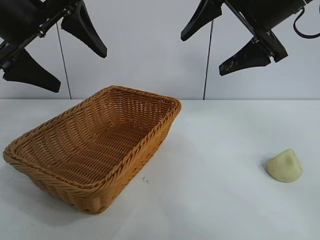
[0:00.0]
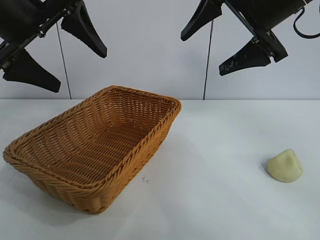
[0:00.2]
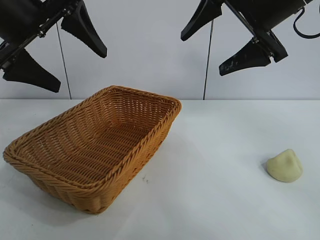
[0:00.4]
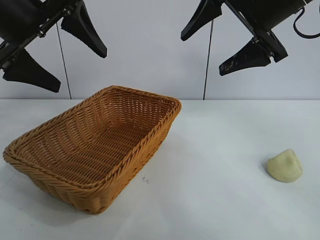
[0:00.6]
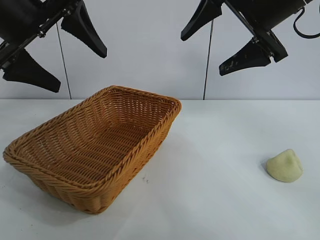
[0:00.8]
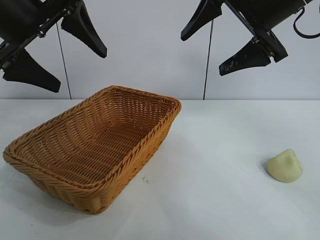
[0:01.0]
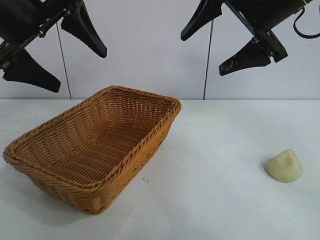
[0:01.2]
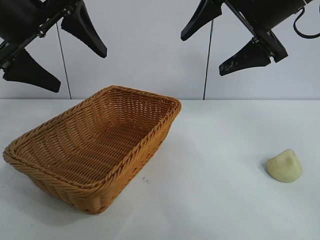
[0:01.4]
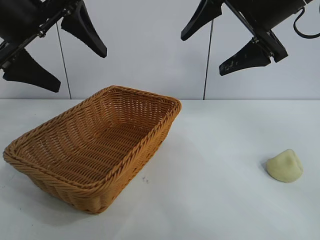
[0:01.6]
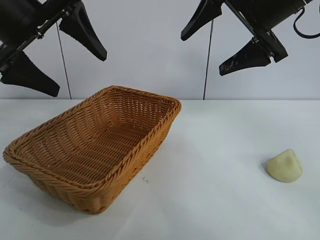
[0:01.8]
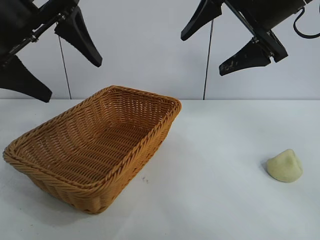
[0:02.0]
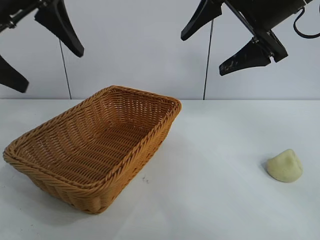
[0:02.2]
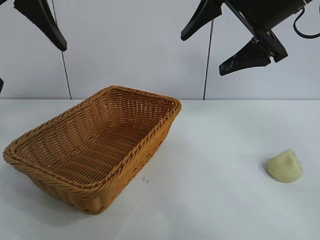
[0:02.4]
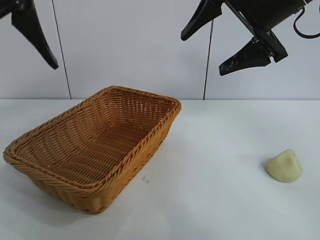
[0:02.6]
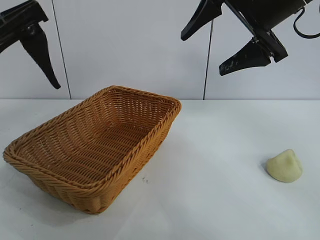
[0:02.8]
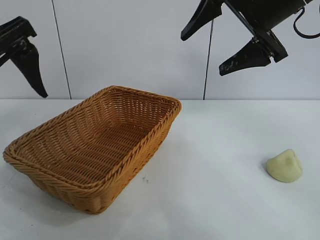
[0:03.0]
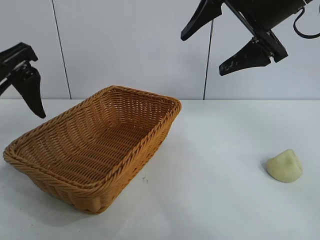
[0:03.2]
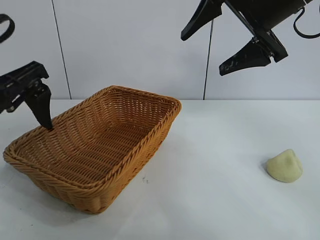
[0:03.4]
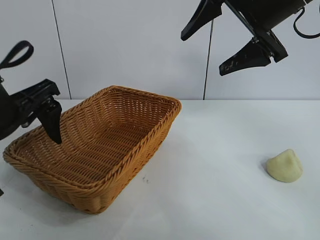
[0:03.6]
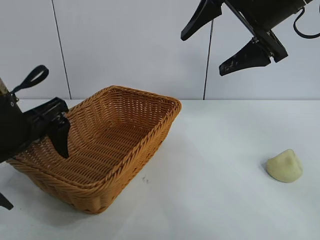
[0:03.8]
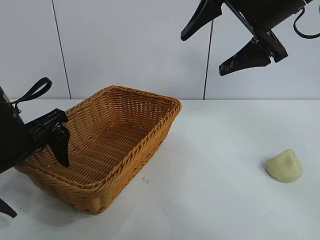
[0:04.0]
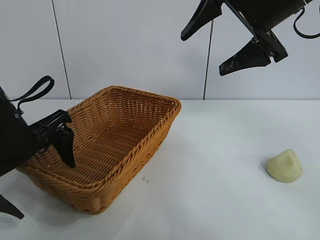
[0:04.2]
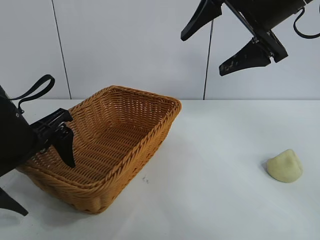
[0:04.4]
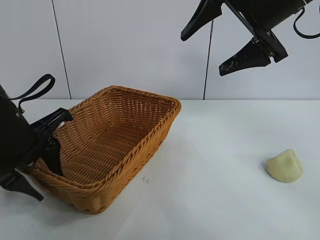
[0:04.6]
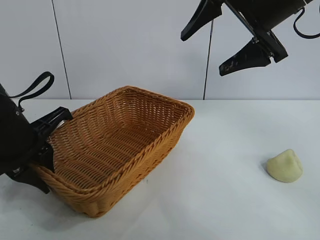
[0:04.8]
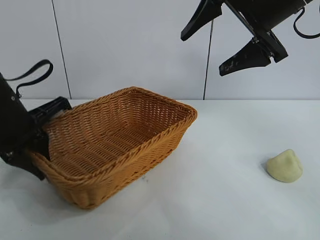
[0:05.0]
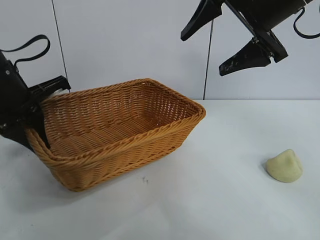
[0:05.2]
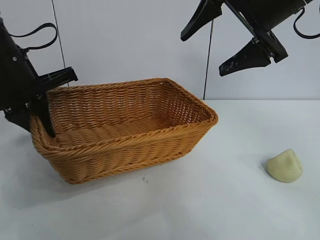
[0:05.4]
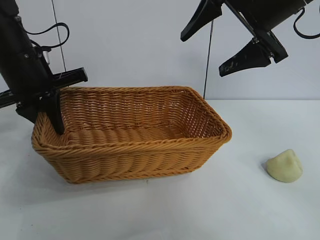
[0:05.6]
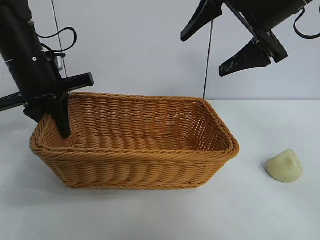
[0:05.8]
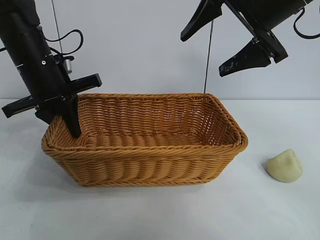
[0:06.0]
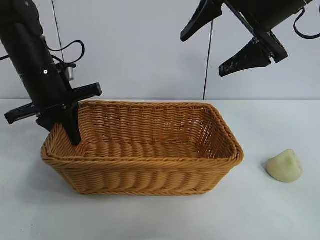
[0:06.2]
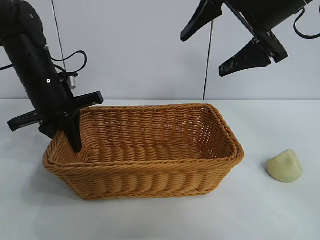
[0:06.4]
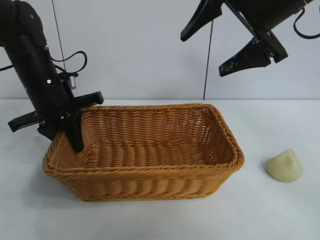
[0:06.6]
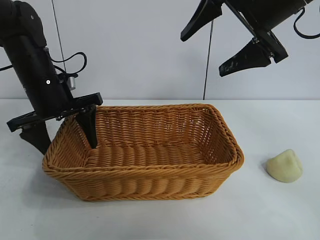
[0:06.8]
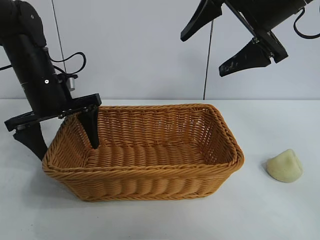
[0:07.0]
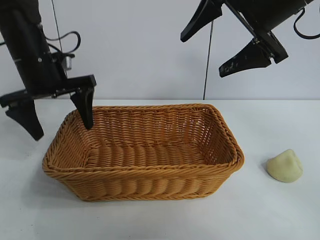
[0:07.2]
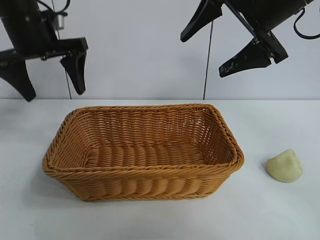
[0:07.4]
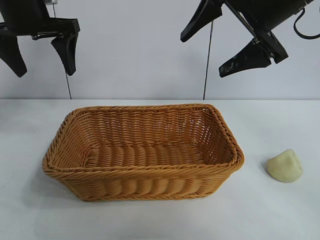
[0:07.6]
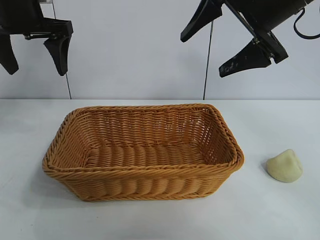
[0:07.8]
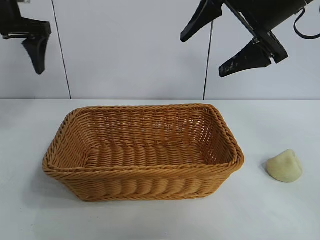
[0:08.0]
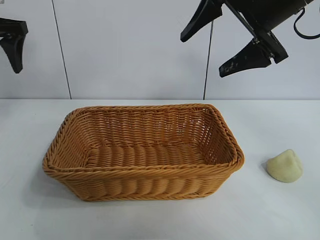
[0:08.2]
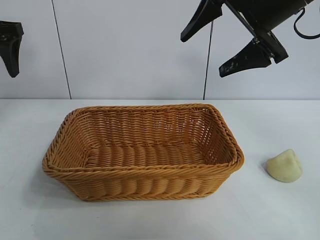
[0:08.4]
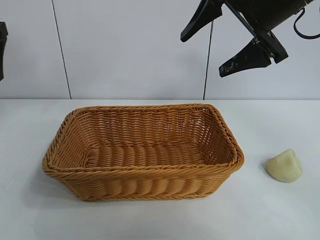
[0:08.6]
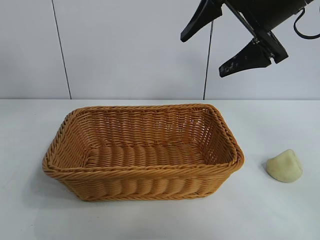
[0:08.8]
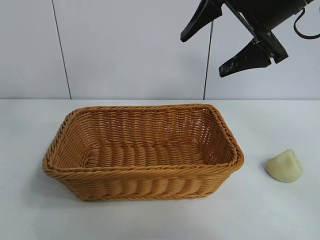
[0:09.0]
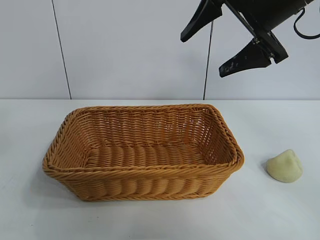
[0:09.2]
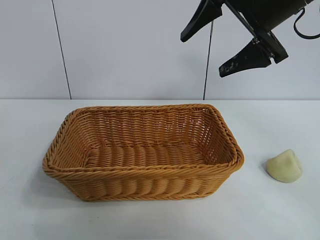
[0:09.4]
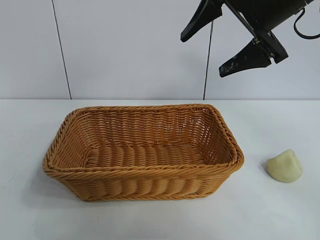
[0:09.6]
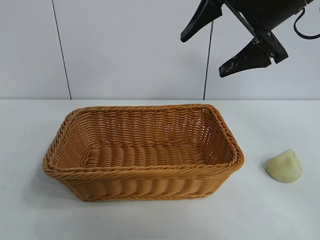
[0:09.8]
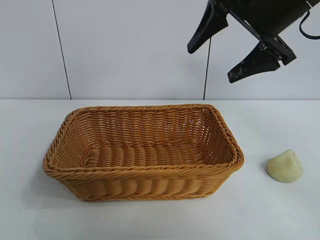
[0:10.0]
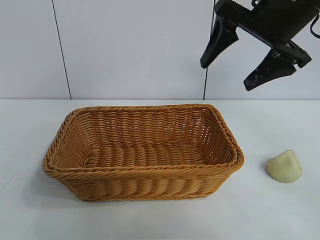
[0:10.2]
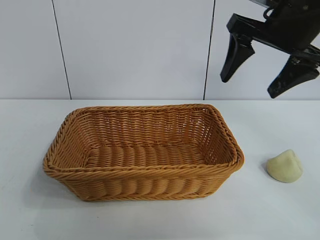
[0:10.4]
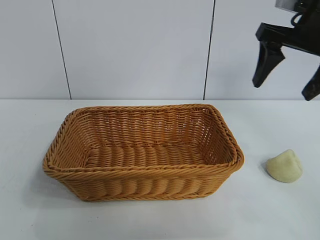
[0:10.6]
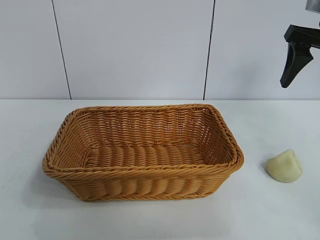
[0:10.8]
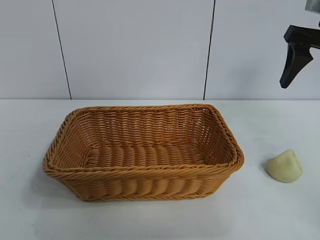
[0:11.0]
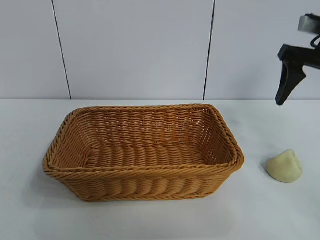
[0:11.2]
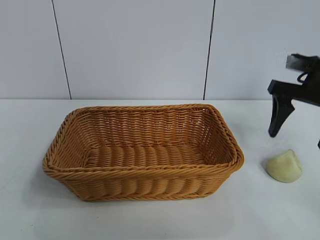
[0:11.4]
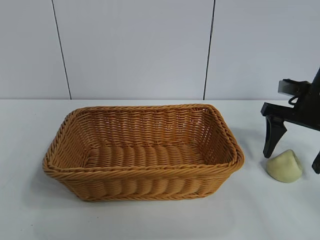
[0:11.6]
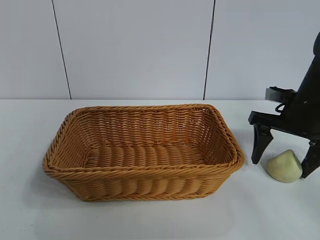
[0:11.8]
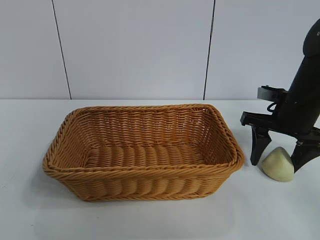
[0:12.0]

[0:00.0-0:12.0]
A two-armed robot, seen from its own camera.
Task of the whole recording: pick up the egg yolk pastry and put it into the basket.
Step, 0:01.8 to 0:04.8: Grasp the basket with left gripper.
Step, 0:05.0 to 0:06.8: Place the basket in the center of view with left gripper.

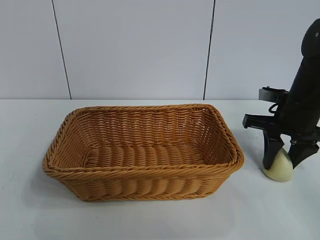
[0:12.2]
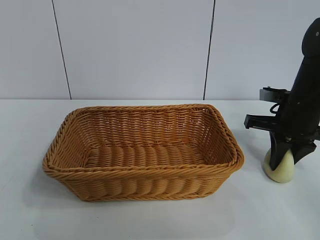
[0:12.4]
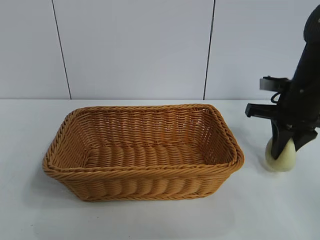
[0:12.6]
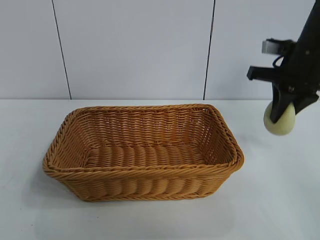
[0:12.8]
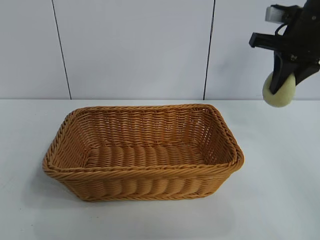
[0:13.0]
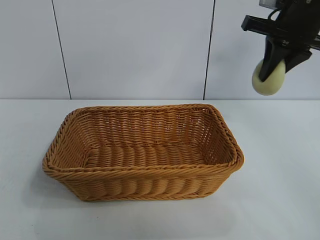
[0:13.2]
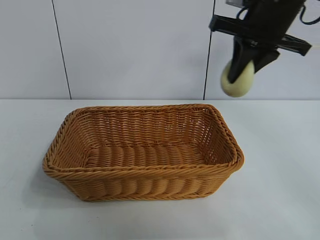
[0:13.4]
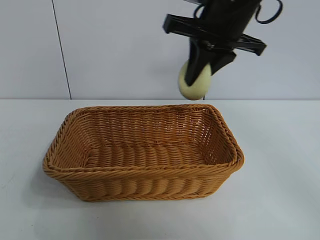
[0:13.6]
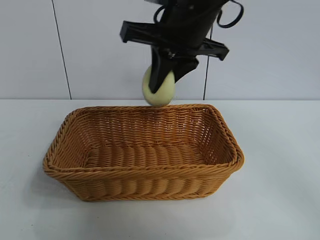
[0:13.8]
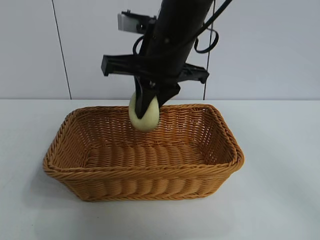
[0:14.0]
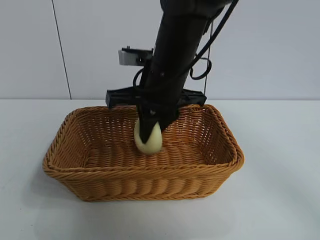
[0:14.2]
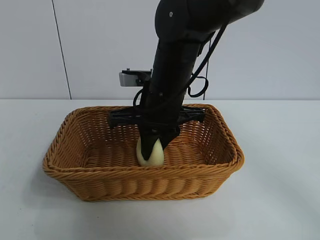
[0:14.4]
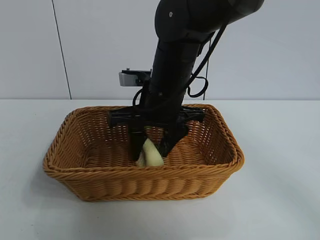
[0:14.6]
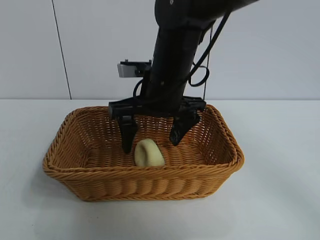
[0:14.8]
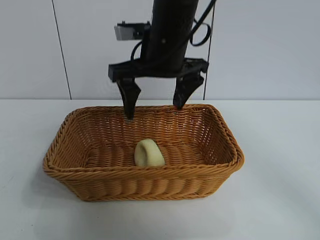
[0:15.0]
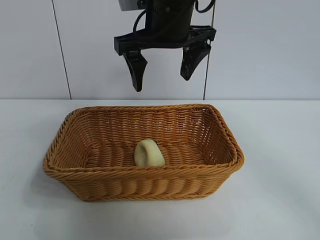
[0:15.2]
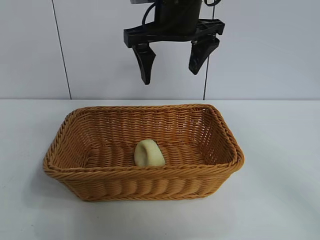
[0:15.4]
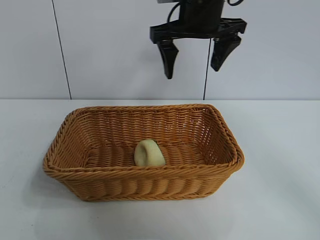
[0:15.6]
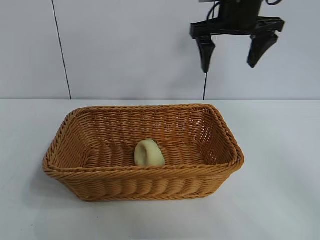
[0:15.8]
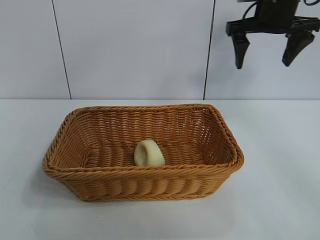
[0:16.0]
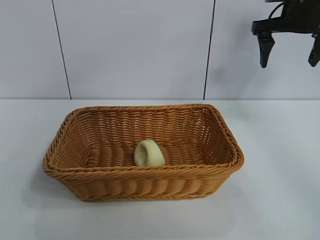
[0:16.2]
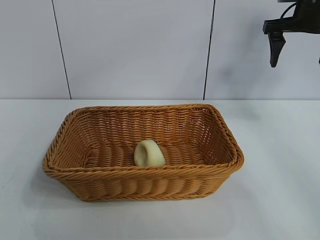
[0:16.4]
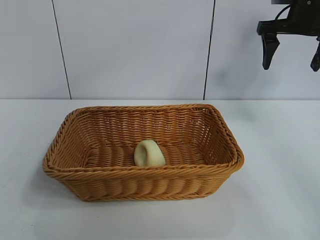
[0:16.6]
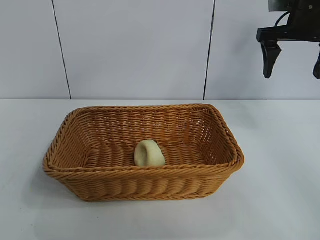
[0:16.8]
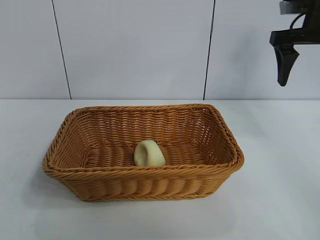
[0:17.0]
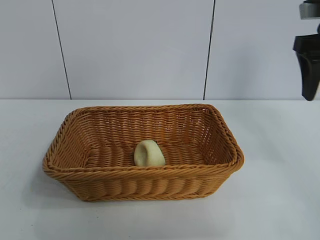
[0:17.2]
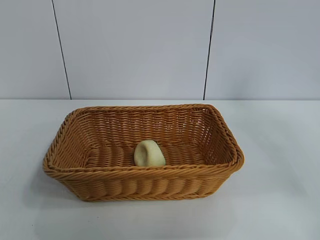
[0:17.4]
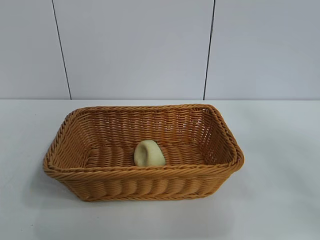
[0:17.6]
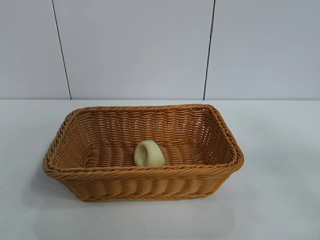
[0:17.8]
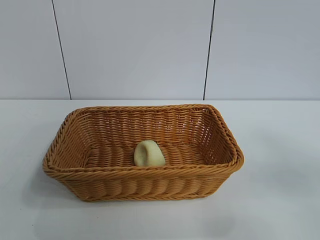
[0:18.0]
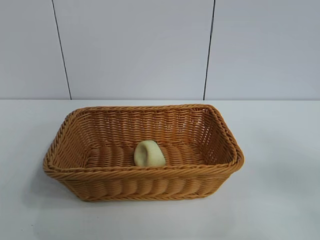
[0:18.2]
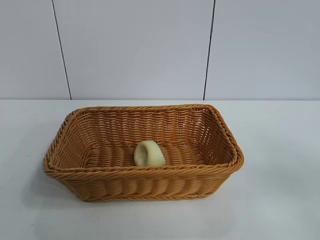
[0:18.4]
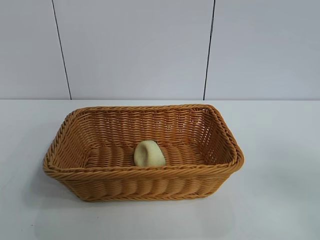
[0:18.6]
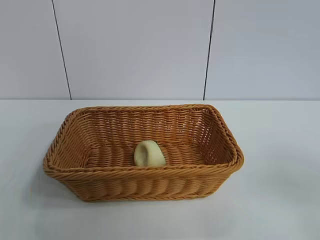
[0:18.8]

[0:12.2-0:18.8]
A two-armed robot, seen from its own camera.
Task of the whole recording: pick up the egg yolk pastry and put it into the basket.
Step, 0:12.4 to 0:14.6: Place the egg yolk pastry in the basket with right gripper.

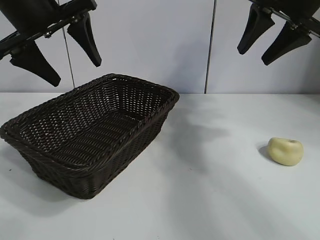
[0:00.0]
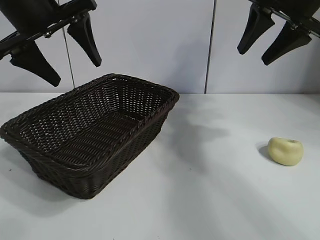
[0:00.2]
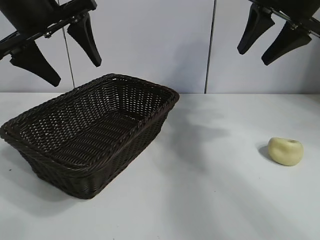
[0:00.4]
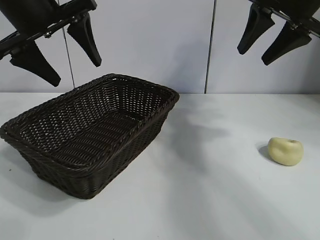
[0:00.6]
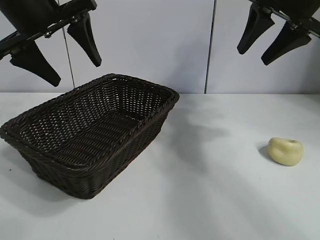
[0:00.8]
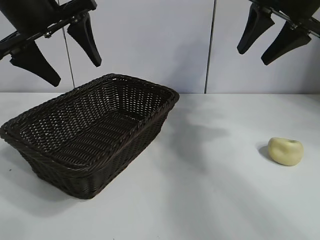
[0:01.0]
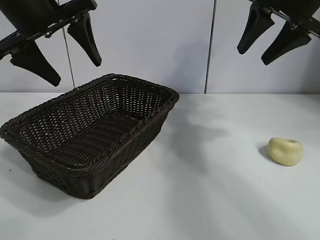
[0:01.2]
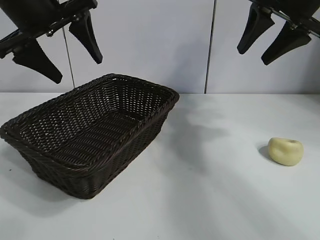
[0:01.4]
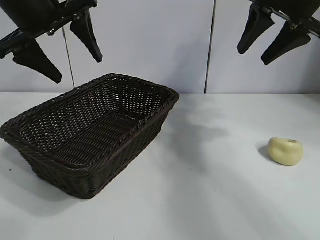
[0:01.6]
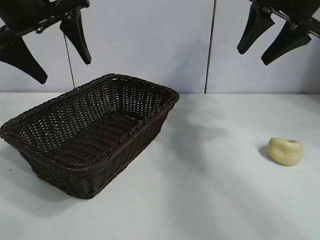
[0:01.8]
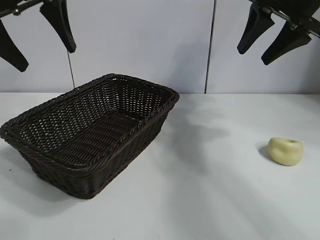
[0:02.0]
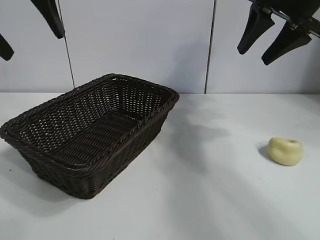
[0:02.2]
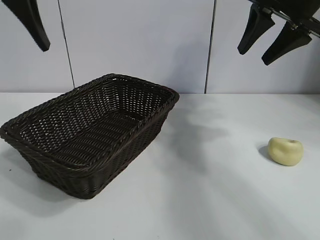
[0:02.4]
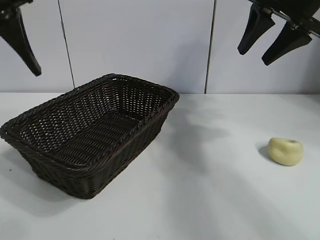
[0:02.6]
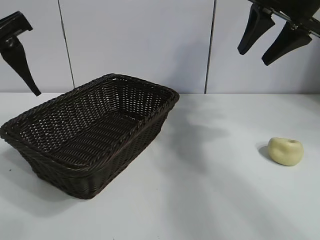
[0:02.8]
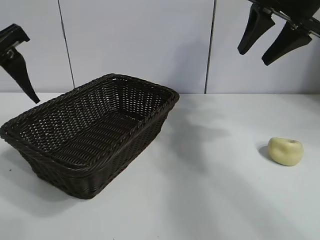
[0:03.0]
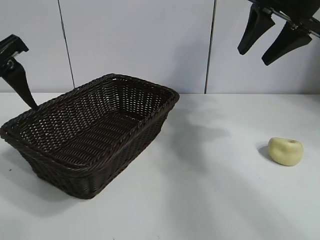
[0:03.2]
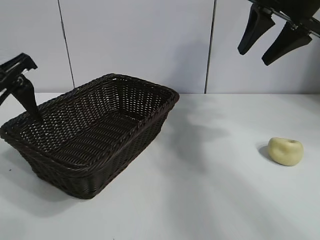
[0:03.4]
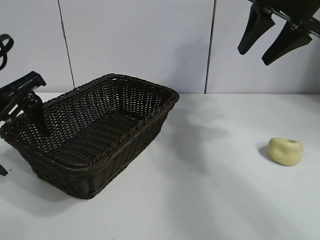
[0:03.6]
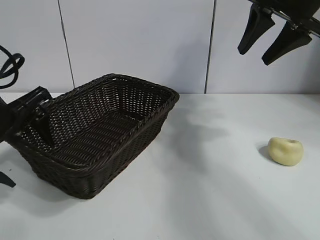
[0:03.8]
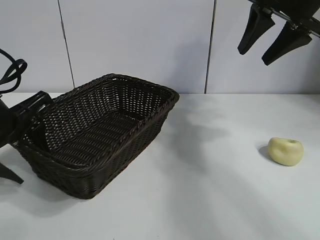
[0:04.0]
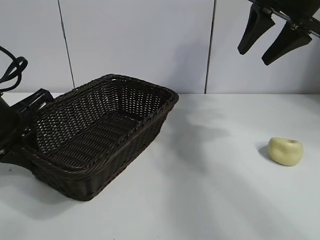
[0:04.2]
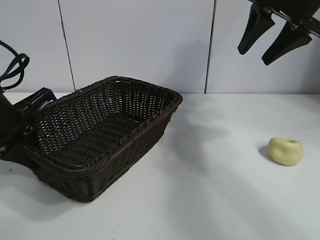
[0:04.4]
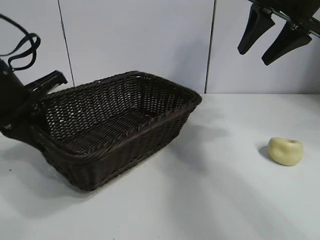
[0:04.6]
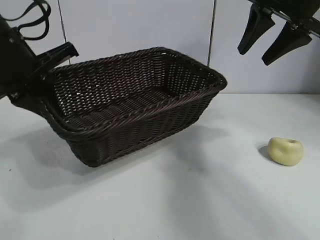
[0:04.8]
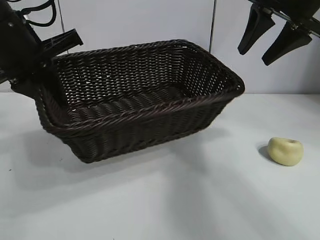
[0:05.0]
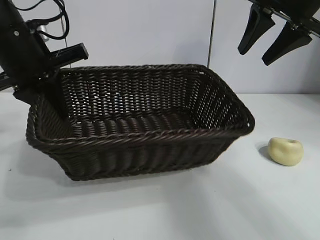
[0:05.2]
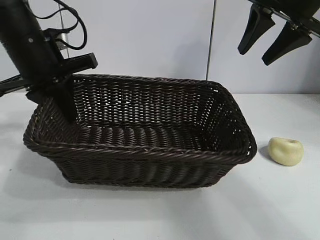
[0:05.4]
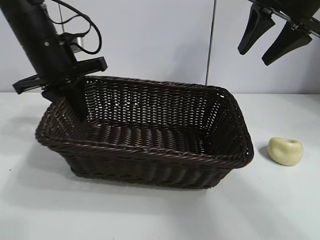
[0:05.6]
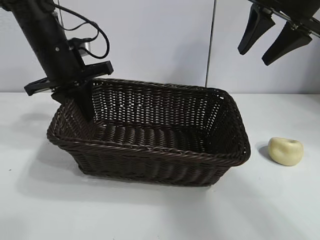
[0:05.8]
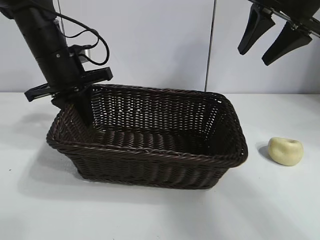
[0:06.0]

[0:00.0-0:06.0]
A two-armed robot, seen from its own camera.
Task of the whole recording: pick up the egg yolk pastry and put it into the basket.
Step, 0:01.2 to 0:04.2: Grasp the basket with left gripper.
